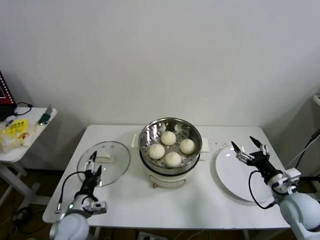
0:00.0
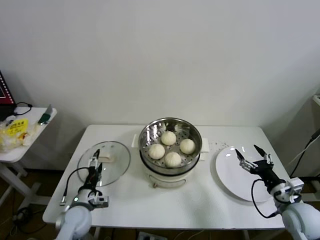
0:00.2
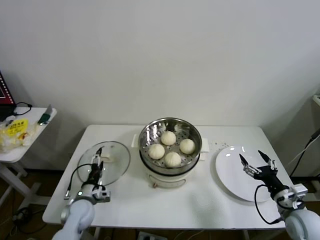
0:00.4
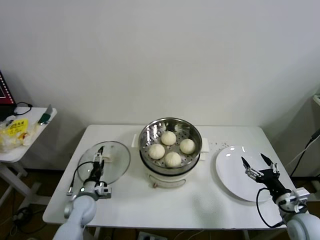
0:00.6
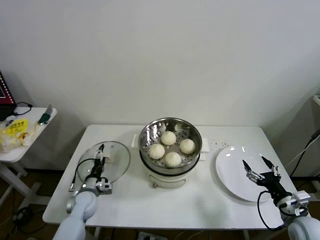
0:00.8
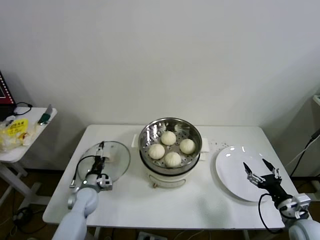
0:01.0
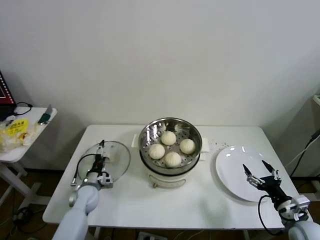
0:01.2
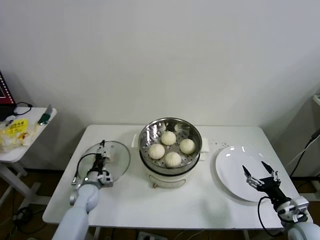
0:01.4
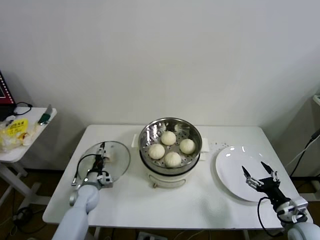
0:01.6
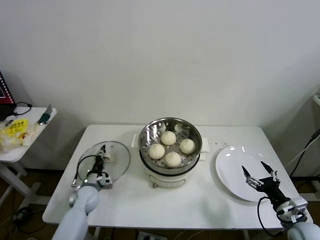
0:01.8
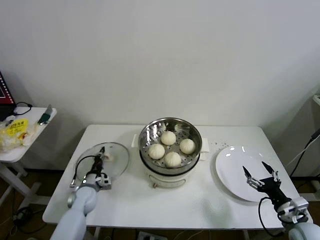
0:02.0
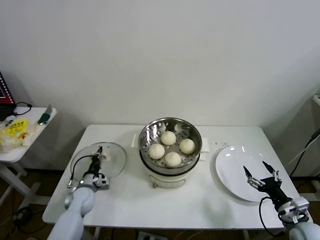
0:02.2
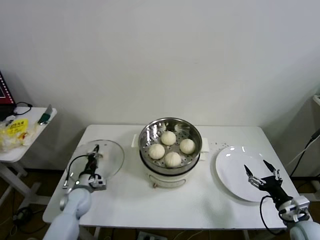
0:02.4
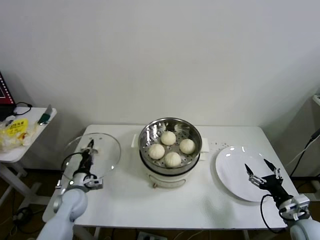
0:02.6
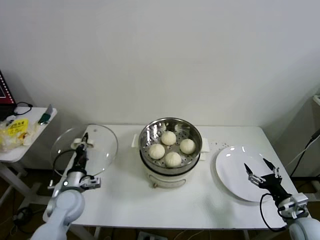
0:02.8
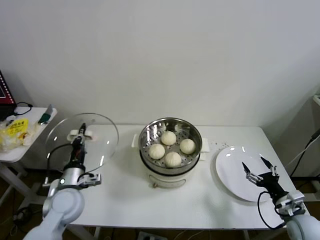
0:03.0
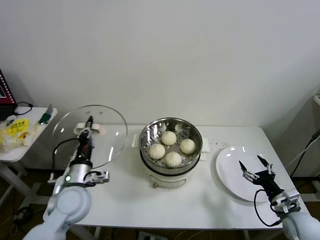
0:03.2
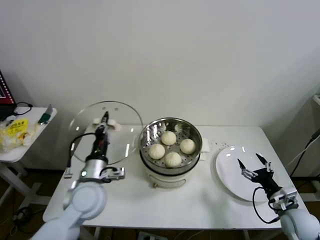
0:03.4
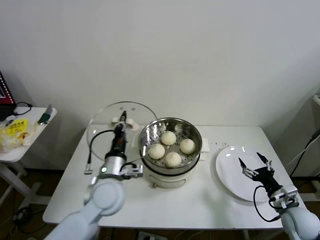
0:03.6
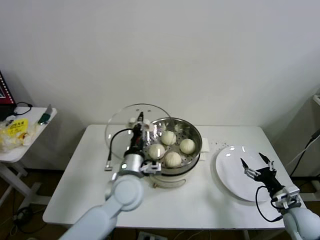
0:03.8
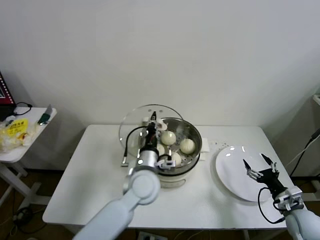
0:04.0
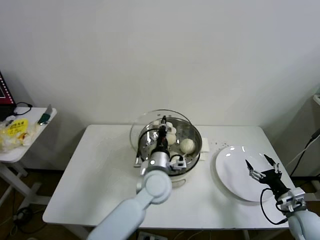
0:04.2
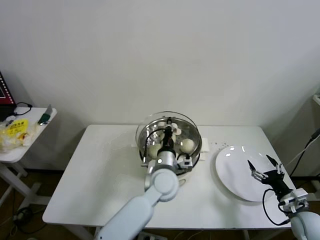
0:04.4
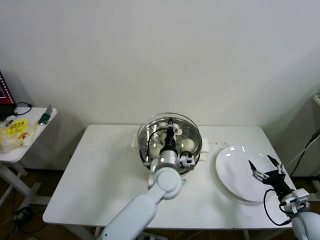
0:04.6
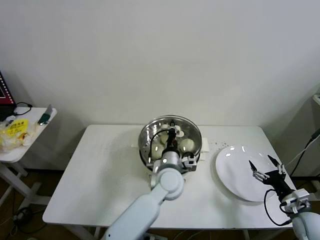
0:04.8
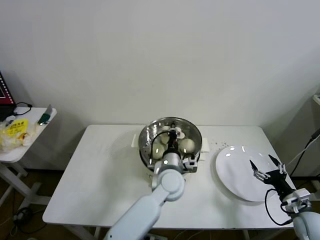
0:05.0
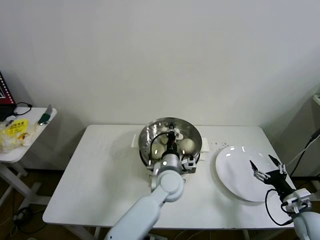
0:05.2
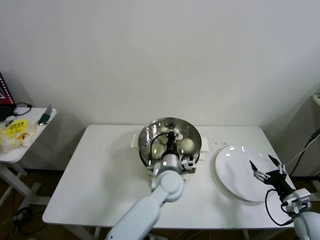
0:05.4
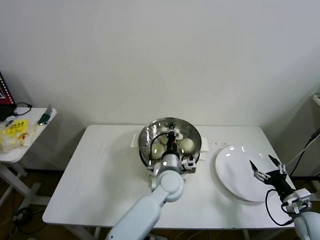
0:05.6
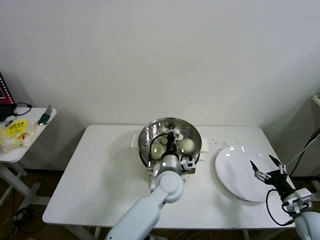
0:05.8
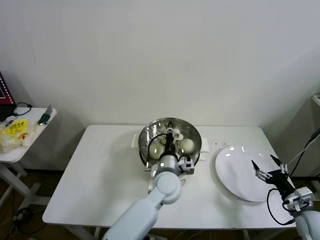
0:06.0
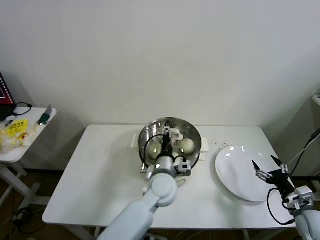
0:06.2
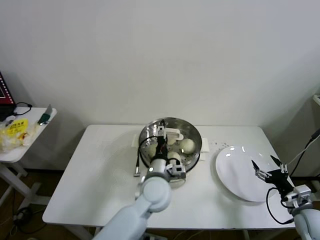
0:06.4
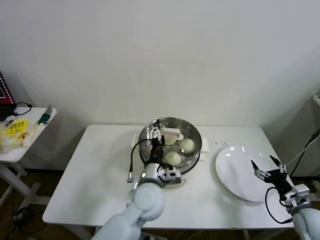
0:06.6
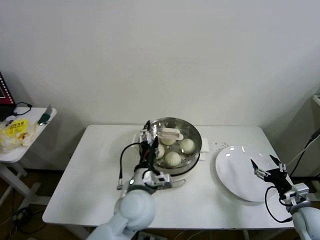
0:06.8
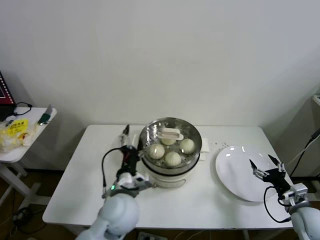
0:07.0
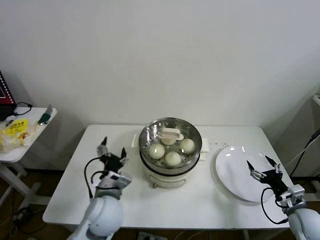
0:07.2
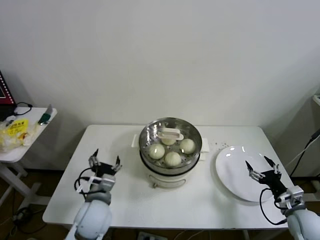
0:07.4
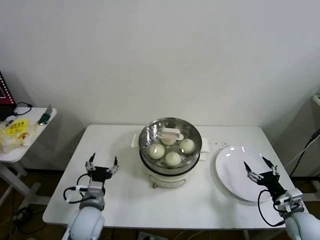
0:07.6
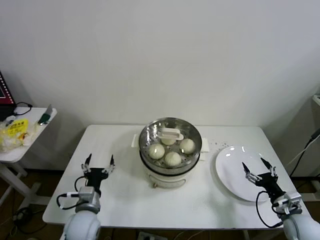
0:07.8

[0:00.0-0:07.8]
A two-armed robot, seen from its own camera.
Step, 0:00.0 to 0:02.0: Grasp the pot lid with left gripper.
Step, 0:02.2 to 0:05.8: Place the pot lid on the steamer with left gripper.
0:00.0 to 0:01.6: The left gripper heads forward and downward, covering roughly 15 cm; the right gripper moves backward and downward, about 10 cm.
0:01.6 to 0:03.2: The left gripper heads upward and backward, covering roughly 20 cm, and closes its fingers.
0:03.2 to 0:04.6: The left gripper travels to the right by roughly 30 cm.
0:04.6 to 0:06.2: The left gripper opens its fingers.
0:06.2 to 0:07.8: The left gripper moves to the left, approximately 25 cm, and opens up.

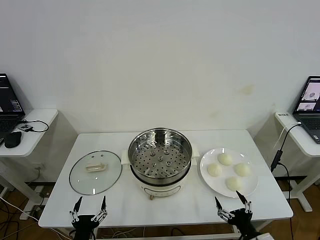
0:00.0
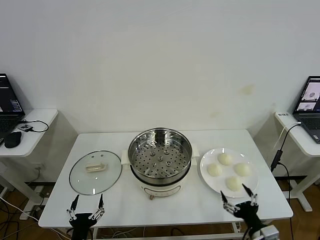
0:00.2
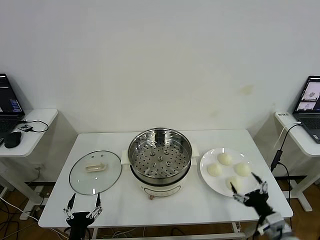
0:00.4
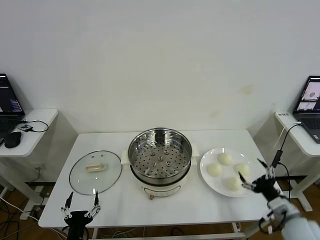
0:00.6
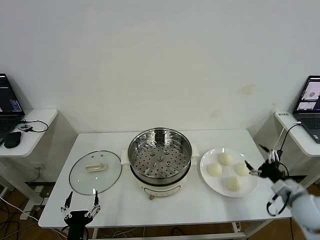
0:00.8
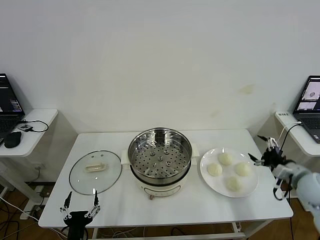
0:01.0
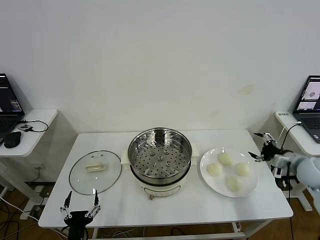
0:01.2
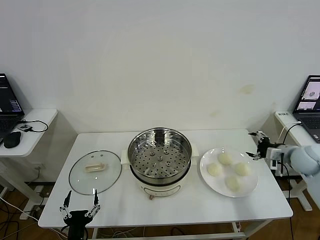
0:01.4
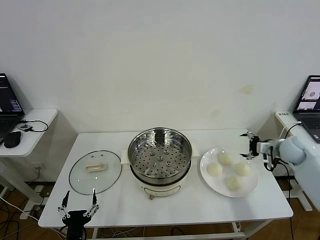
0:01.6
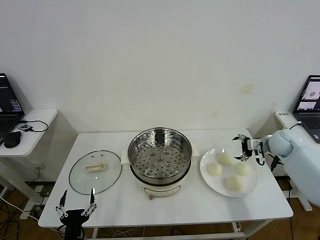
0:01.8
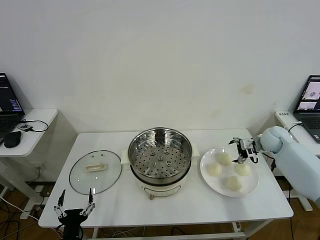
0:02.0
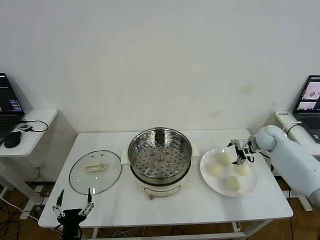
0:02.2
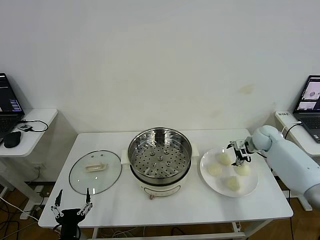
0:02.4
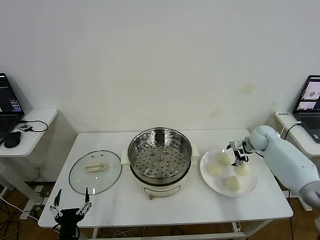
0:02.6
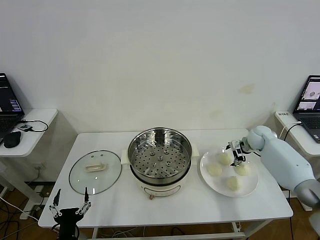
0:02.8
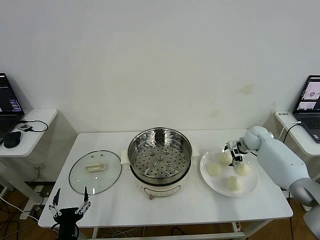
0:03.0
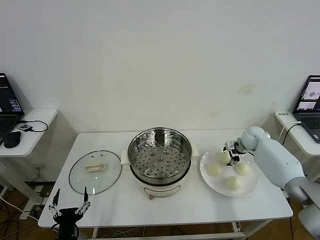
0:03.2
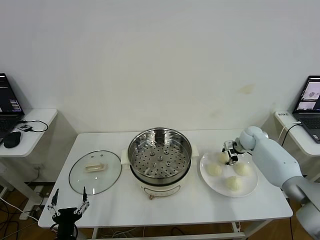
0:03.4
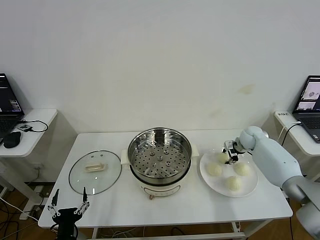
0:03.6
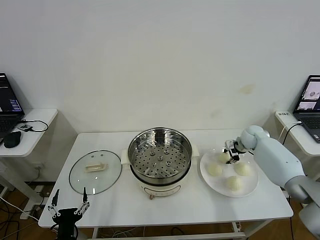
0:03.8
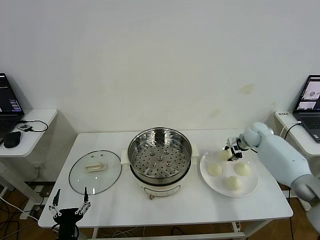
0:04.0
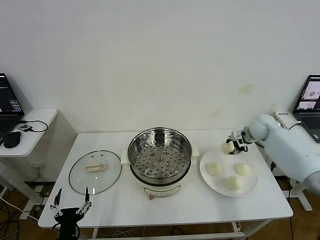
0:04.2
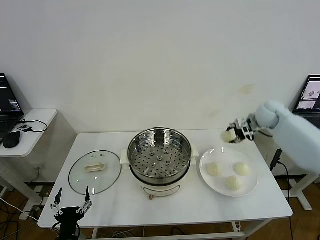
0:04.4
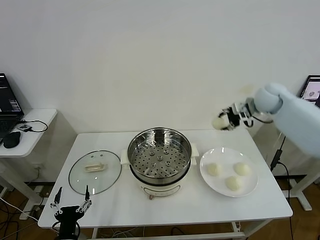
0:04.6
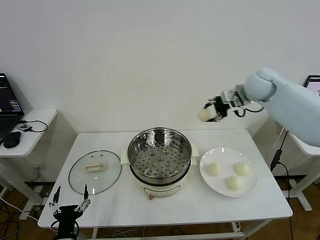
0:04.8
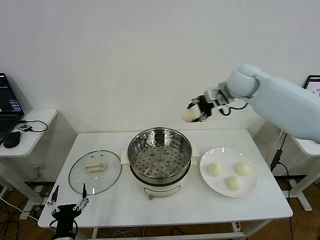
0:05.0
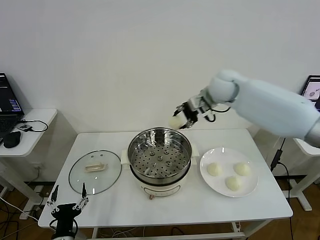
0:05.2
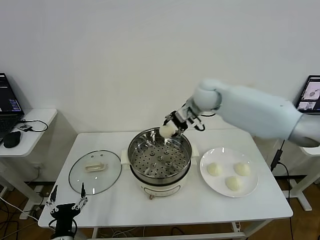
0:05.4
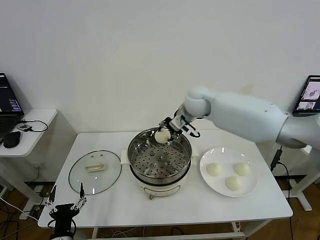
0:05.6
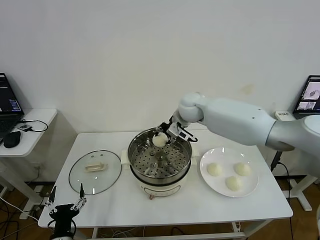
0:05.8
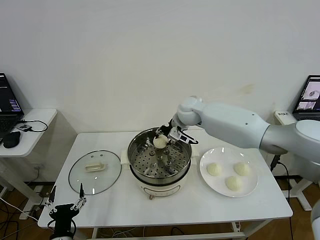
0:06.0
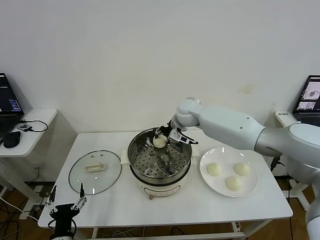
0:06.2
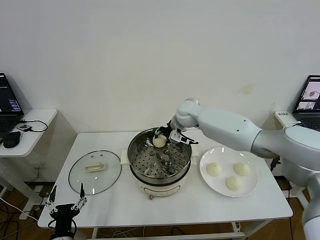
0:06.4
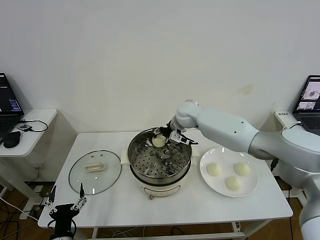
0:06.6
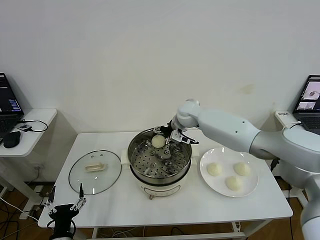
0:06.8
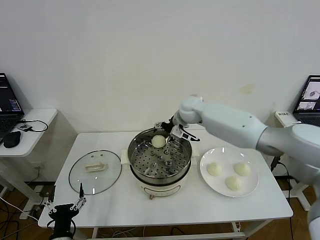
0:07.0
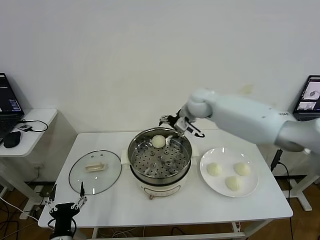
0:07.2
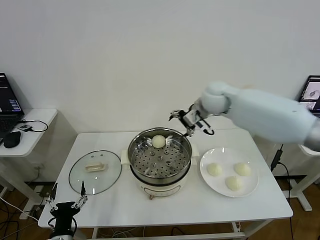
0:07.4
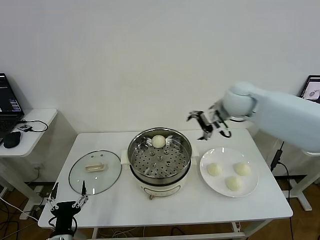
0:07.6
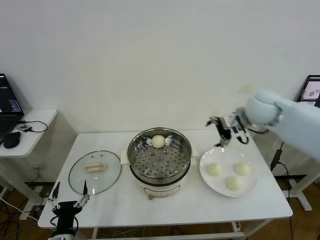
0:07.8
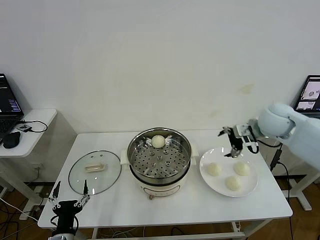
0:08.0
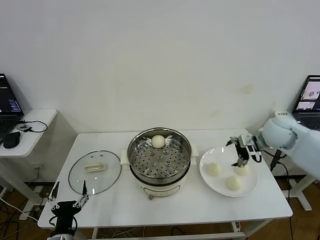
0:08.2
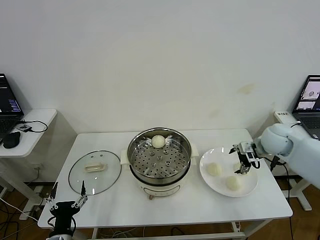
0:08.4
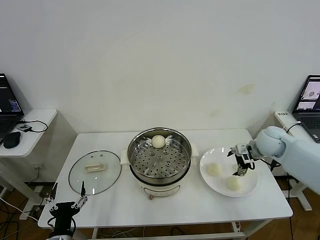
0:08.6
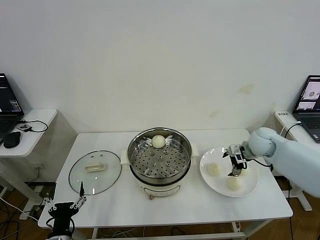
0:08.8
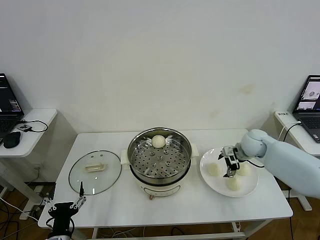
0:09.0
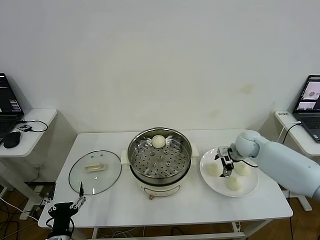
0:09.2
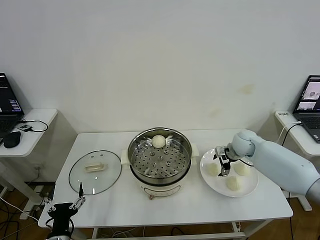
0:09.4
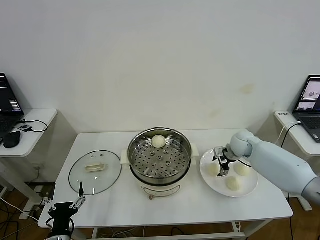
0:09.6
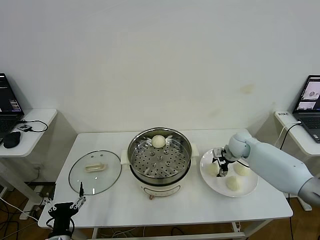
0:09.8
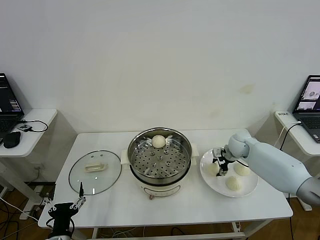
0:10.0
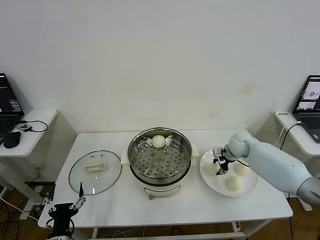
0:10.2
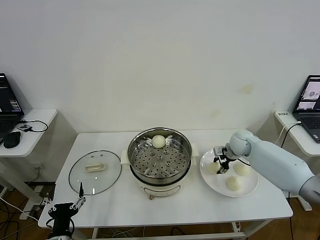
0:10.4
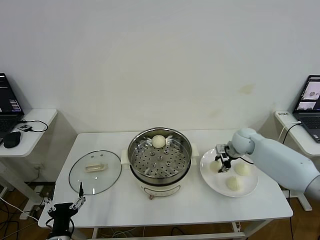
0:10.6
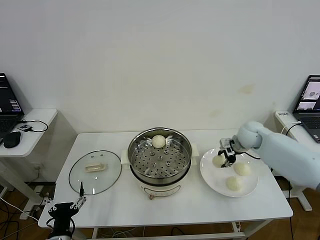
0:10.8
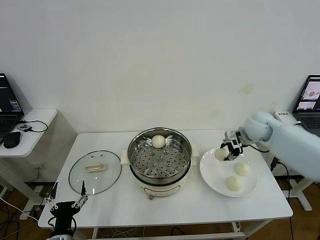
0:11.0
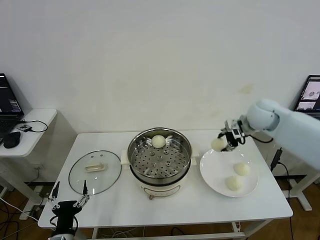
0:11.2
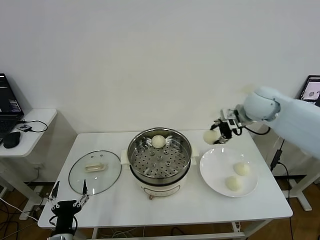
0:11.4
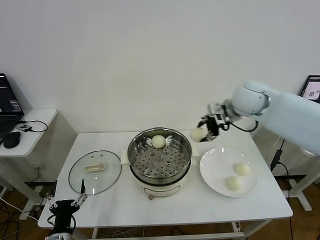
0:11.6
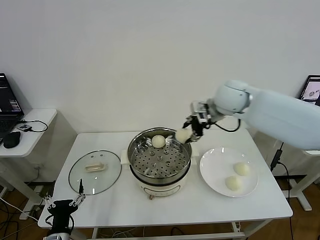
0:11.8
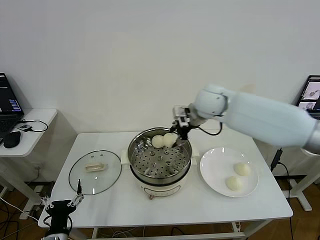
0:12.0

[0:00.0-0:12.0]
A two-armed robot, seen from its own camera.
Step, 0:00.0 to 0:03.4: Grasp the baozi in the plate with right gripper.
Step, 0:03.6 to 0:06.6: Place the baozi on the steamer with right gripper.
Step, 0:06.8 to 0:10.0: Grasp the baozi in the plate with right gripper.
0:01.6 to 0:03.0: The right gripper goes roughly 10 cm forward, to the left and downward.
0:03.0 to 0:04.4: The right gripper moves upward, some 20 cm, and closes its fingers.
0:04.4 to 0:06.0: The right gripper moves to the left, about 30 cm.
0:06.0 to 0:07.6: The right gripper moves to the right, upward and backward, roughly 20 cm, and opens.
0:07.6 to 0:09.0: The right gripper heads downward, covering approximately 20 cm.
0:09.0 to 0:10.4: The right gripper closes up.
0:10.4 to 0:12.0: The right gripper travels upward and to the left by some 25 cm.

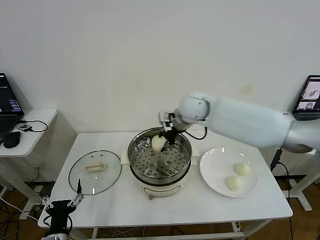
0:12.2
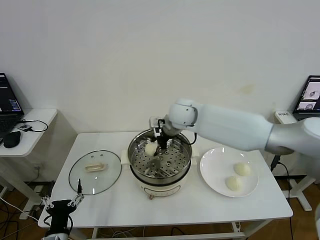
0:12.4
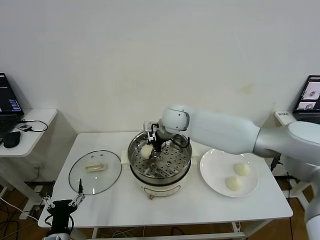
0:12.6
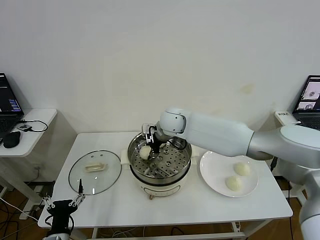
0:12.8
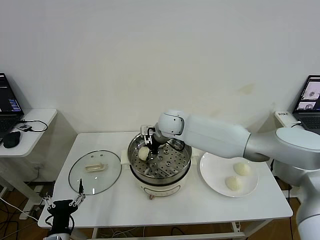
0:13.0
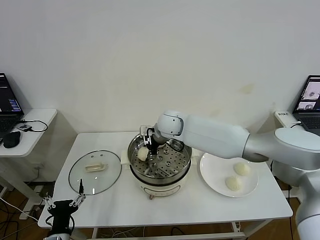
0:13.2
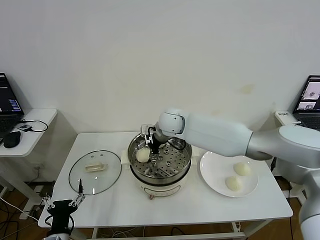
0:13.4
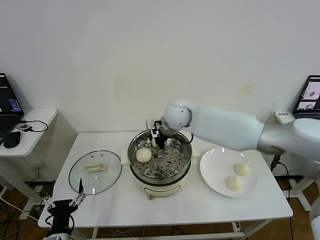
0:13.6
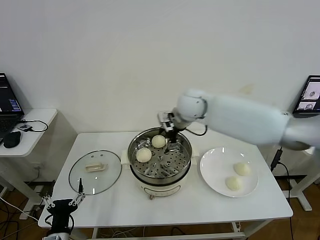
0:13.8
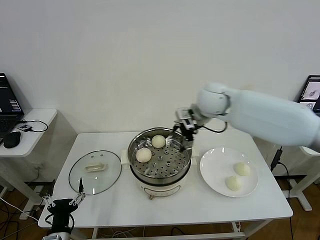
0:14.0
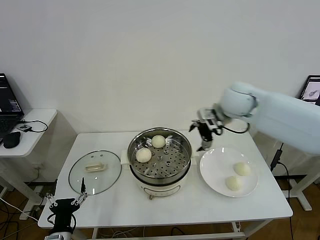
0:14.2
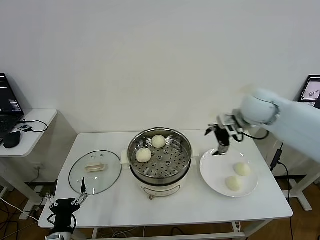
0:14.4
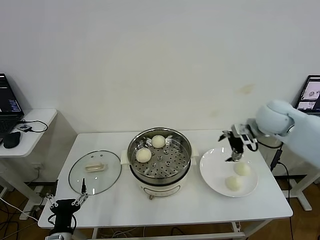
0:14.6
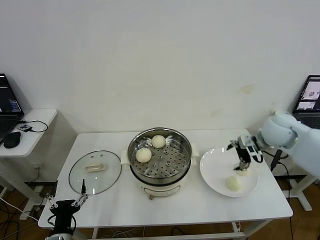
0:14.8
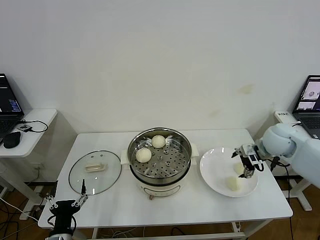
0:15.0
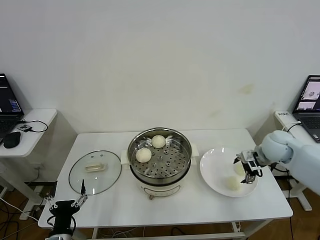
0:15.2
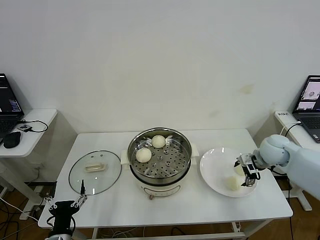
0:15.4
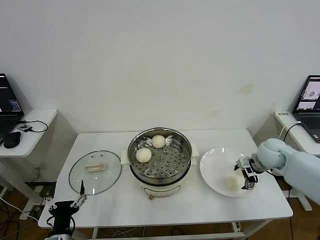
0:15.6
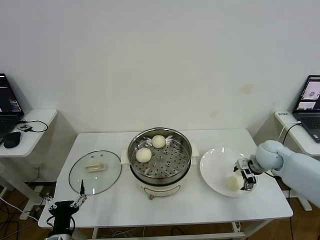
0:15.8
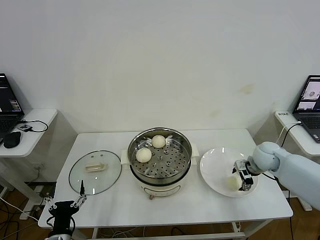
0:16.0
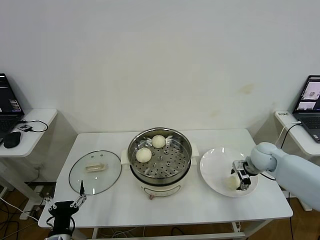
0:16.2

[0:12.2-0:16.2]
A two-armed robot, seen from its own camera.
0:12.2 to 0:13.6: The right gripper opens.
0:13.6 to 0:14.8: The right gripper shifts roughly 30 cm to the right.
0:14.8 to 0:16.2: The right gripper is displaced downward by roughly 15 cm, and closes.
